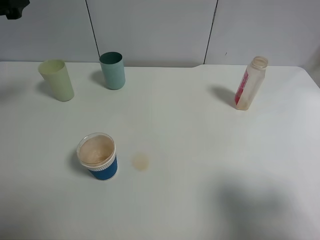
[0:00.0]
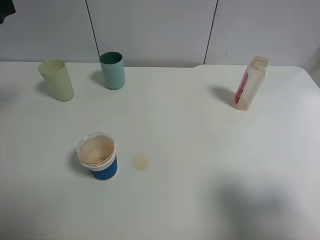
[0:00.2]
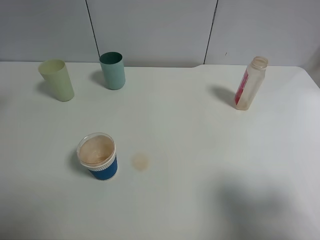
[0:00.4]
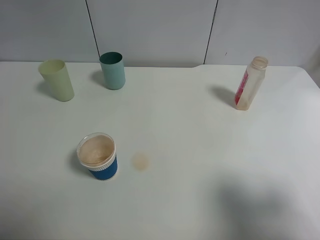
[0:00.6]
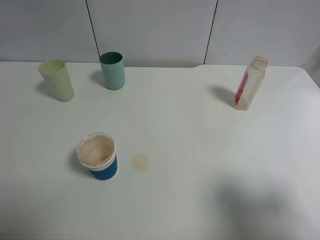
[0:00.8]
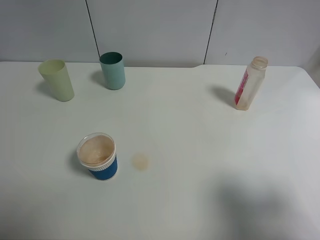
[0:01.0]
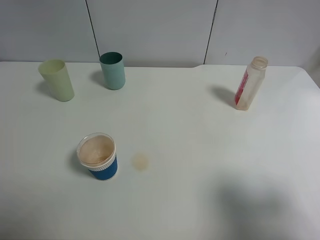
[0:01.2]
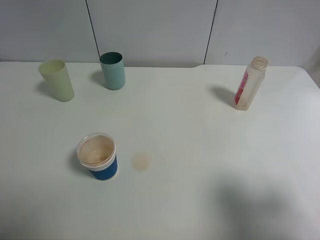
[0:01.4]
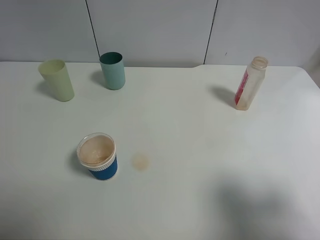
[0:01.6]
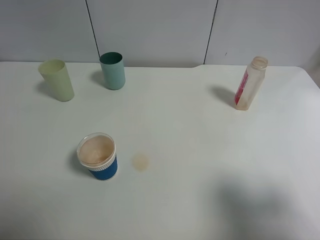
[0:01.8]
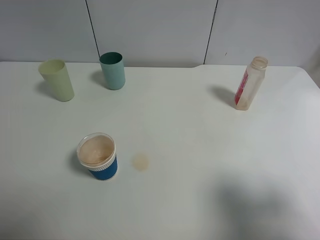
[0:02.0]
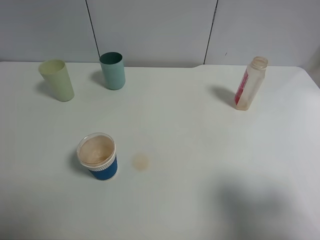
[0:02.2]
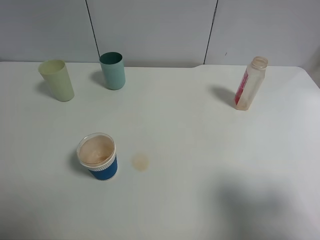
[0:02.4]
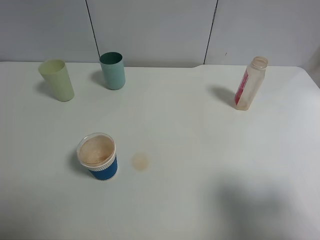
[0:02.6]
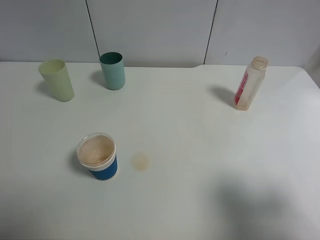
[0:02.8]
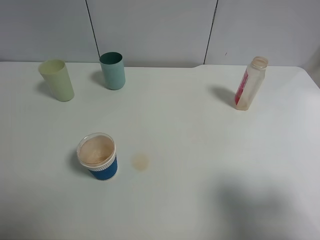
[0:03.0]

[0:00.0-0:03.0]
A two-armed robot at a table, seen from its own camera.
Task of the whole recording: use a clamp to hold the bottle of the drink, pour the beverage into a random cup, then clamp the cup containing the drink and pour the drink into another random cup.
0:00.0 to 0:01.6: The left gripper goes about 25 cm backward.

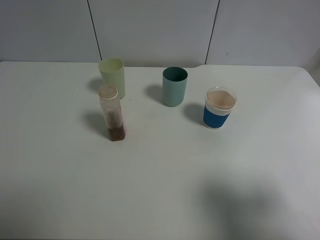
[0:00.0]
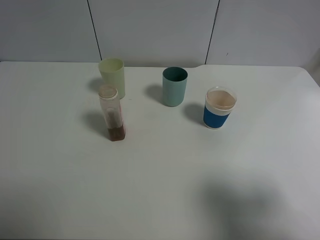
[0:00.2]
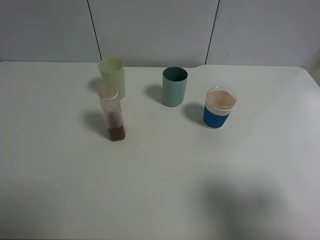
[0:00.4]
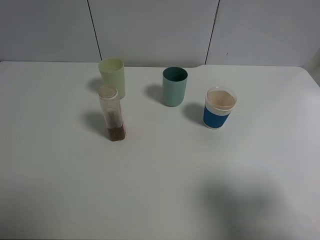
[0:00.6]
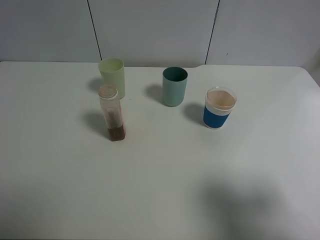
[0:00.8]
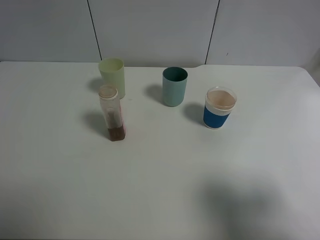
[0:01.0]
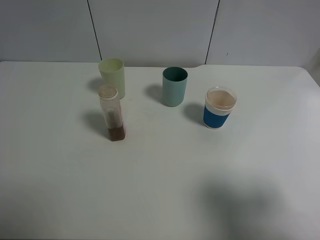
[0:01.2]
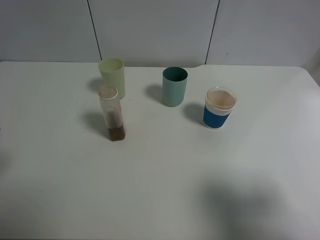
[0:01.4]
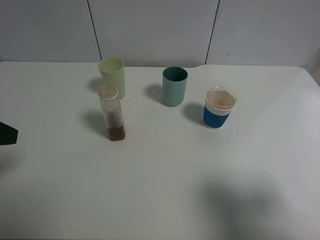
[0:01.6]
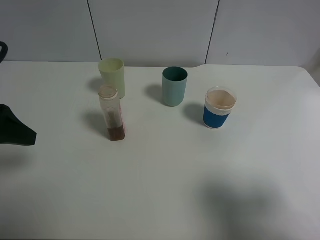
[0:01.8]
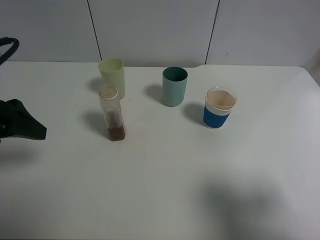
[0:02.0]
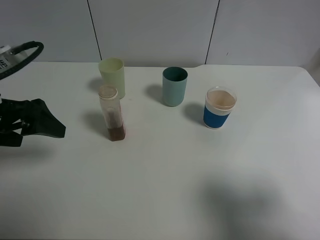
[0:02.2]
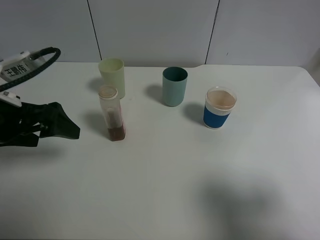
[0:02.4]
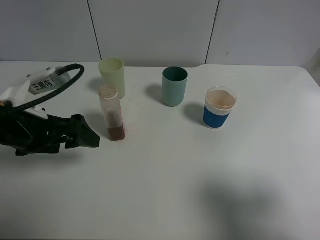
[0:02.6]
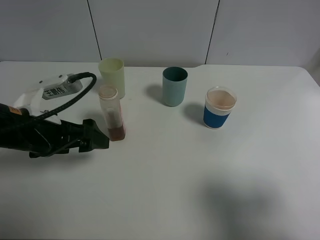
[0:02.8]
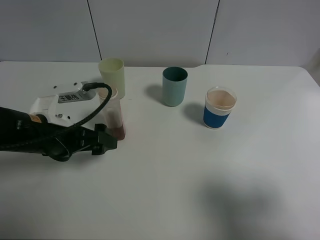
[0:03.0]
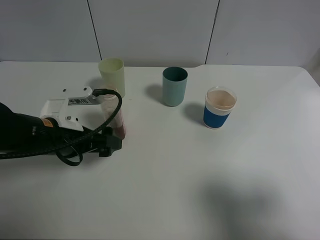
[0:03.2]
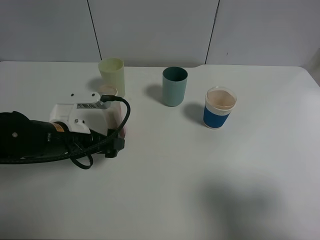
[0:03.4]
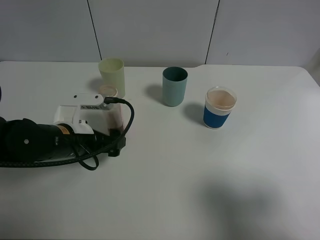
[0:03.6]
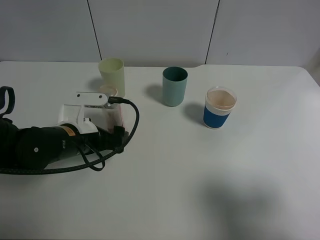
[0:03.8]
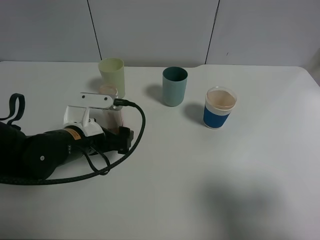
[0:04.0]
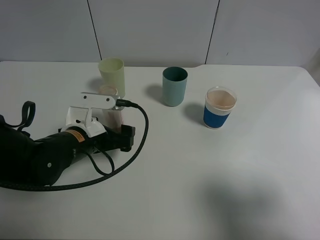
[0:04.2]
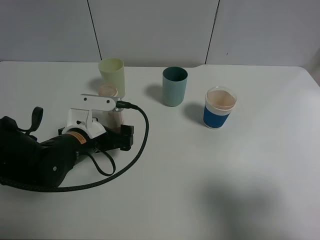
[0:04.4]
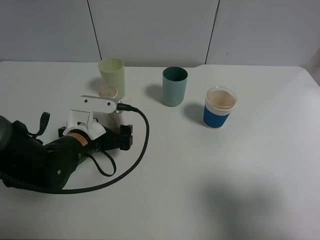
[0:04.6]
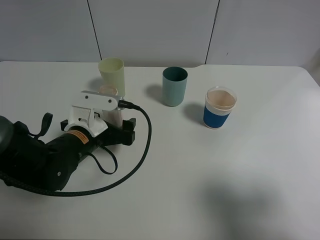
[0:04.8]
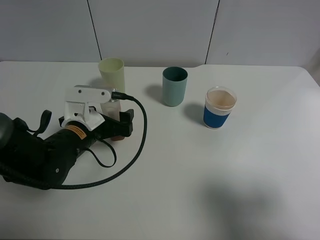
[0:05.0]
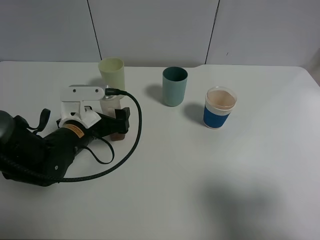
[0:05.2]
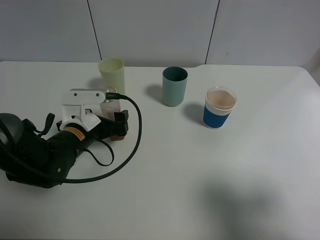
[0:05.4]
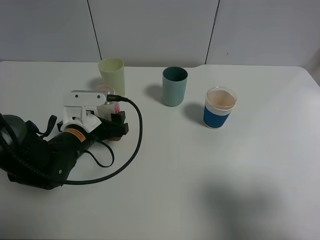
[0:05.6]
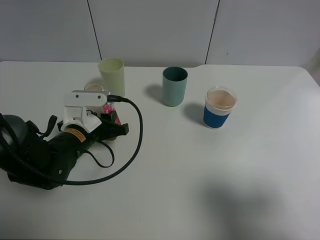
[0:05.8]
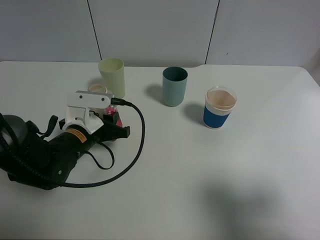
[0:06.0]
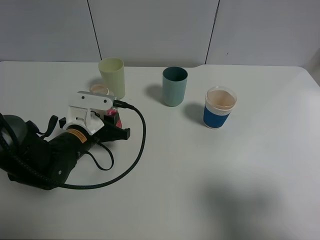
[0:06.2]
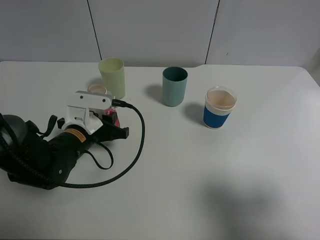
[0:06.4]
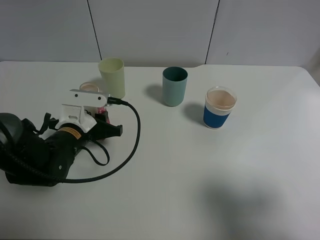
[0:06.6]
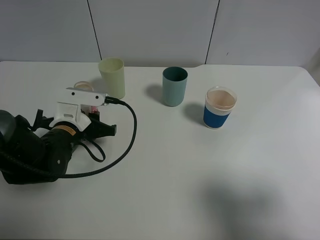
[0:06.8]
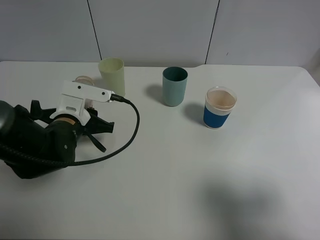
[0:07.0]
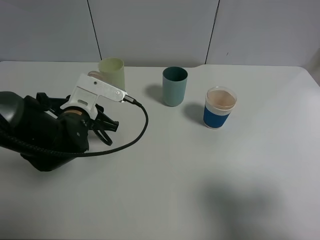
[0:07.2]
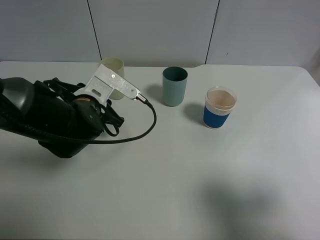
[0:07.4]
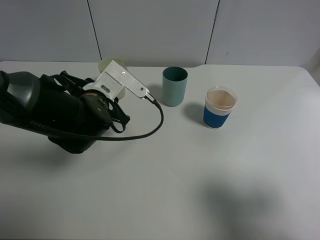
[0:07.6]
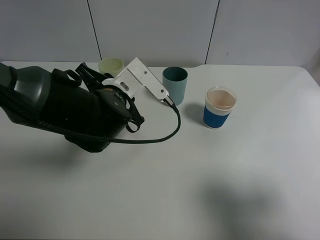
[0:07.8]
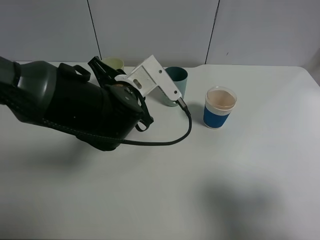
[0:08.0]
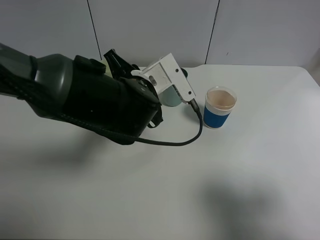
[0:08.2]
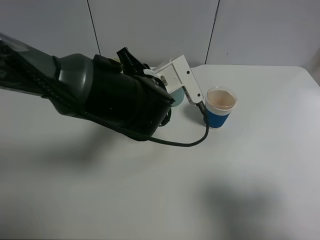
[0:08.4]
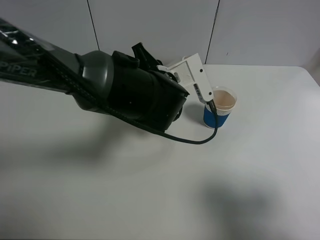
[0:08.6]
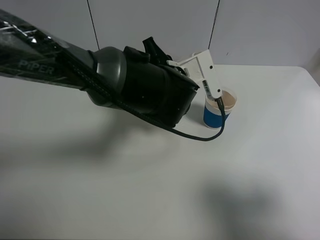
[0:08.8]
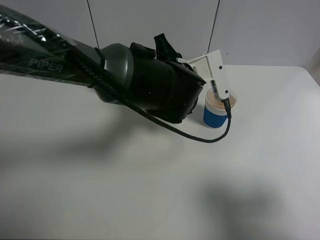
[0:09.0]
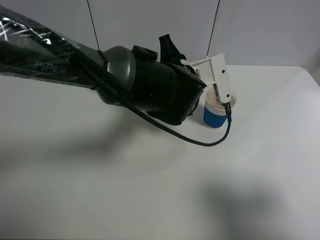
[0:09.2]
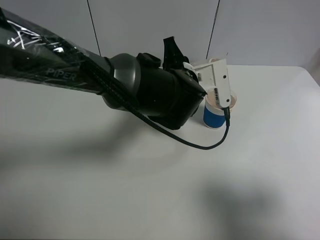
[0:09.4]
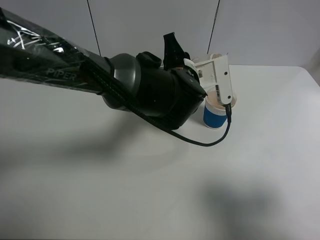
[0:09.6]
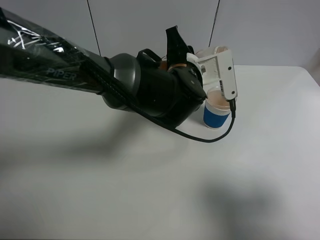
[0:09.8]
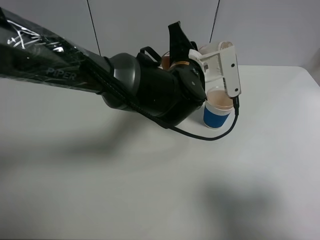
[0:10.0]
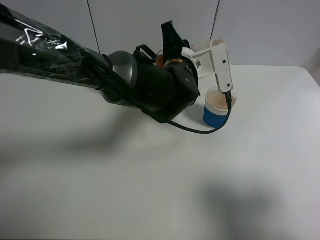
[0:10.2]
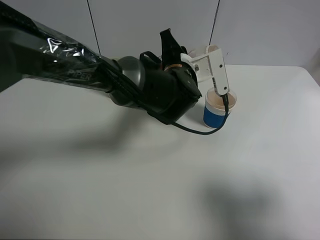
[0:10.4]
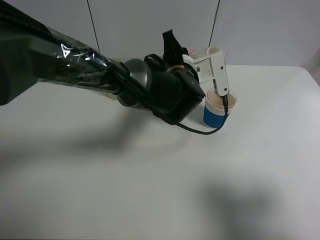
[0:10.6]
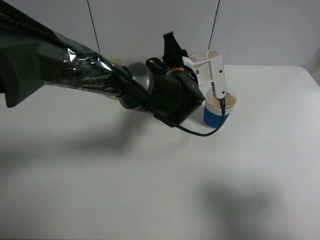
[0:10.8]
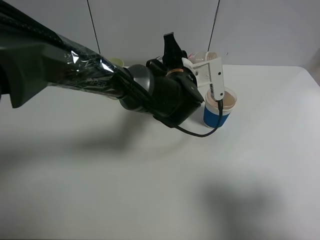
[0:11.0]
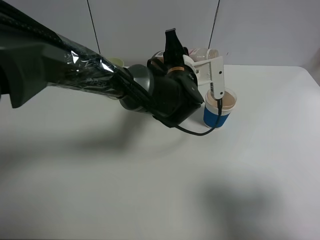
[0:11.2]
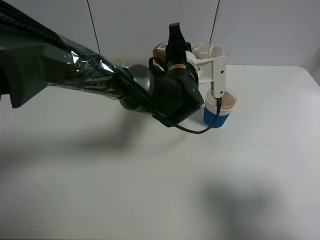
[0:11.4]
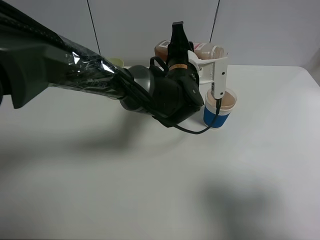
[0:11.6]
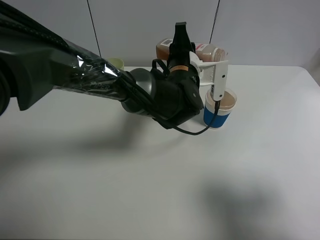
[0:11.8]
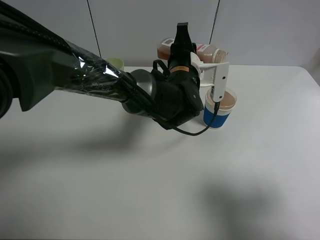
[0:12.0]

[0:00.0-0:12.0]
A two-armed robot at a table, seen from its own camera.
Task of the whole recording: use a clamp to hold the bottle of the drink, pour the beverage into a random cup, then clamp the cup containing the drink and pour the drink into another random cup.
Step, 0:00.0 to 0:06.4: Pick up the drink bottle with left gripper.
0:00.0 to 0:01.6: The left gripper is displaced forward by approximately 15 cm.
0:01.6 to 0:03.0: The left gripper goes some 15 cm downward, to the right and forward.
0:03.0 to 0:04.4: The left gripper shifts roughly 5 cm downward.
0:04.4 to 0:06.0: The left gripper closes.
0:06.0 to 0:07.6: The left gripper moves upward, roughly 5 cm.
0:07.6 to 0:09.0: The left gripper heads to the right, covering roughly 15 cm.
0:09.0 to 0:10.4: The grippers make only small movements.
0:10.4 to 0:12.0: The grippers make only small movements.

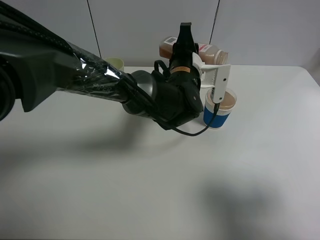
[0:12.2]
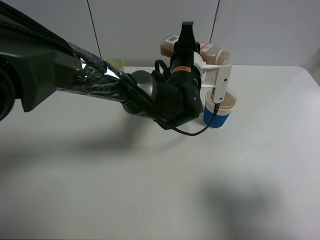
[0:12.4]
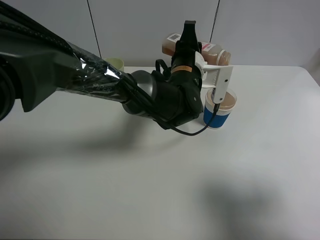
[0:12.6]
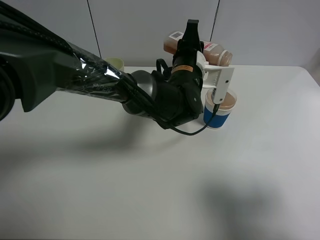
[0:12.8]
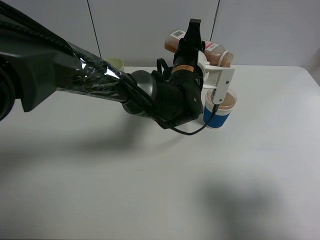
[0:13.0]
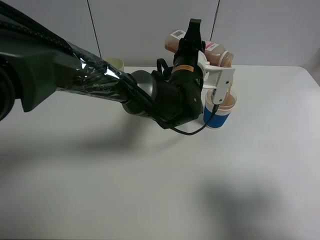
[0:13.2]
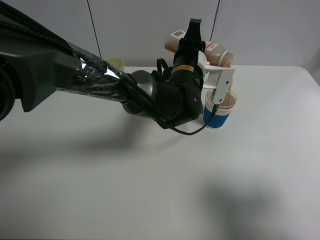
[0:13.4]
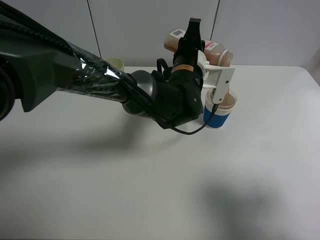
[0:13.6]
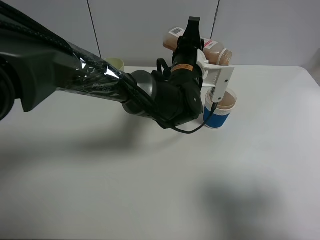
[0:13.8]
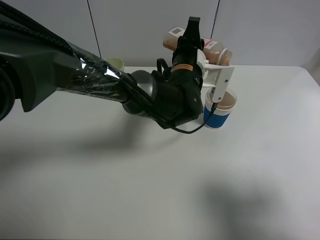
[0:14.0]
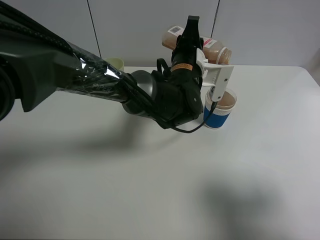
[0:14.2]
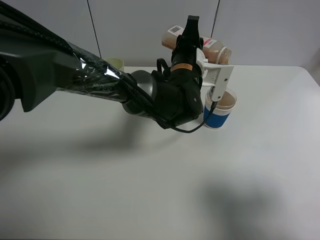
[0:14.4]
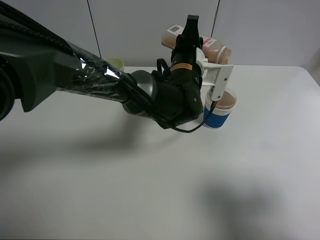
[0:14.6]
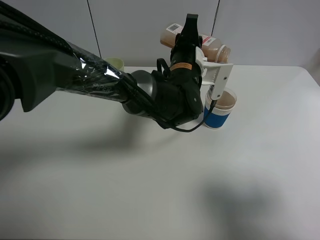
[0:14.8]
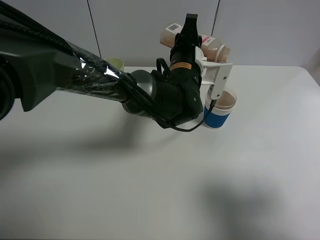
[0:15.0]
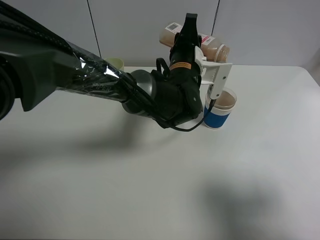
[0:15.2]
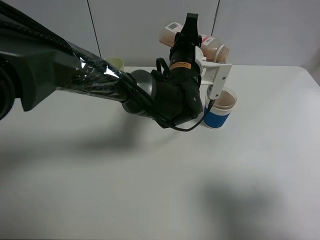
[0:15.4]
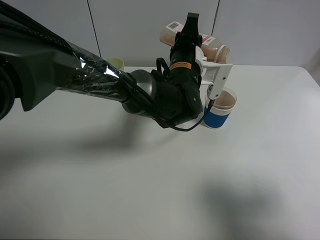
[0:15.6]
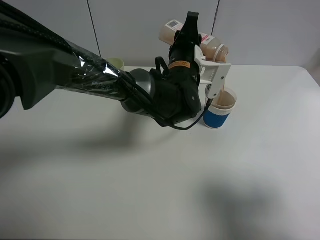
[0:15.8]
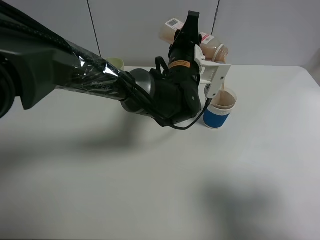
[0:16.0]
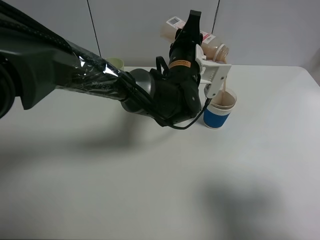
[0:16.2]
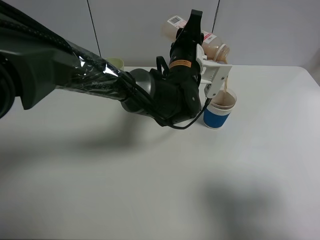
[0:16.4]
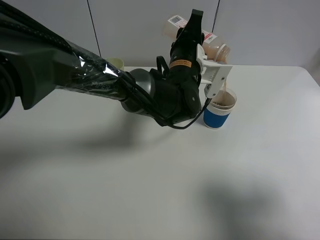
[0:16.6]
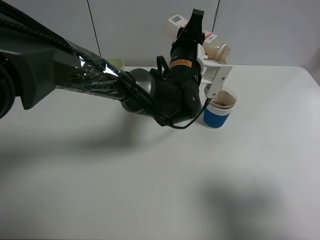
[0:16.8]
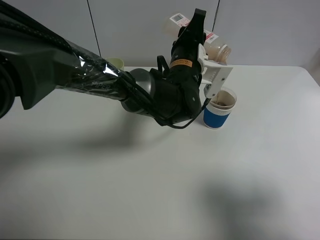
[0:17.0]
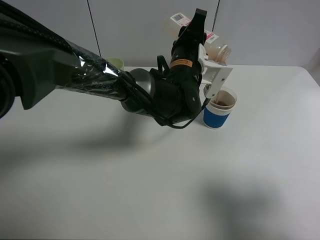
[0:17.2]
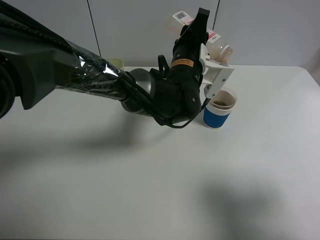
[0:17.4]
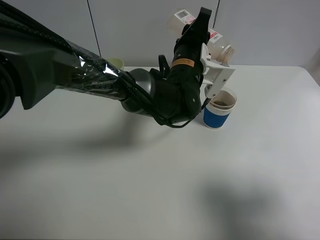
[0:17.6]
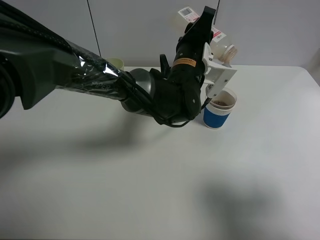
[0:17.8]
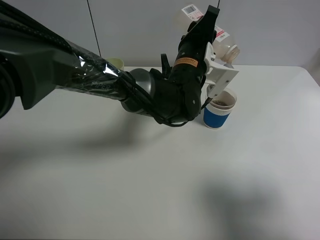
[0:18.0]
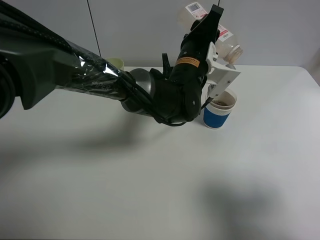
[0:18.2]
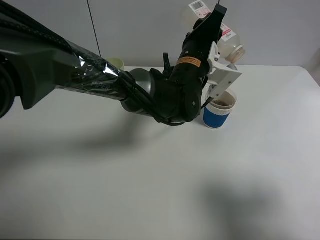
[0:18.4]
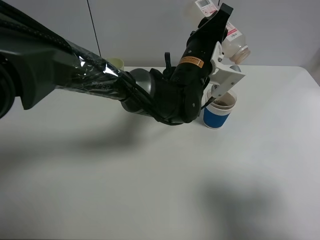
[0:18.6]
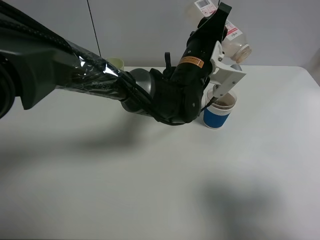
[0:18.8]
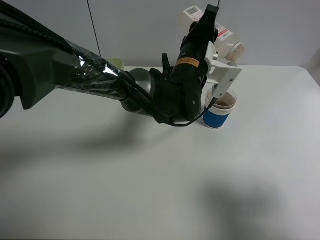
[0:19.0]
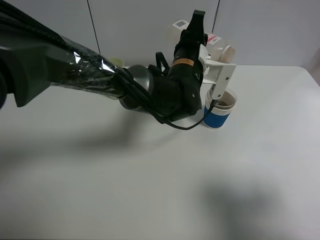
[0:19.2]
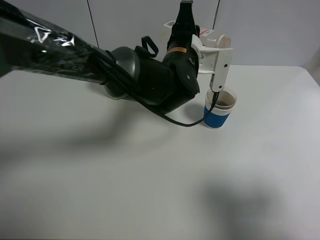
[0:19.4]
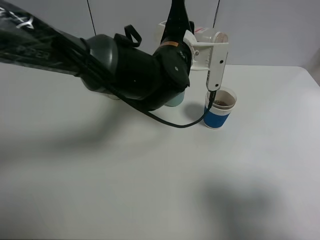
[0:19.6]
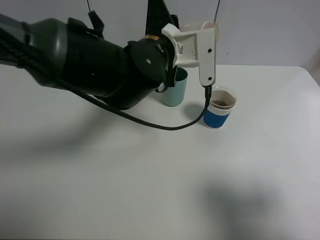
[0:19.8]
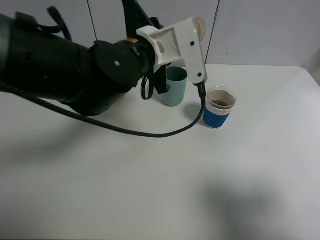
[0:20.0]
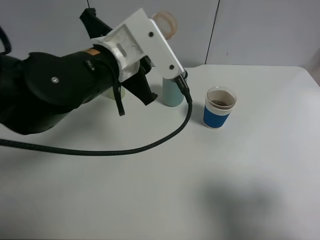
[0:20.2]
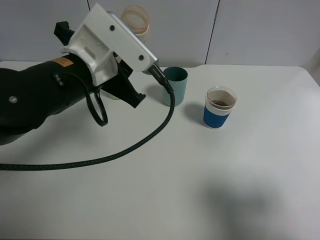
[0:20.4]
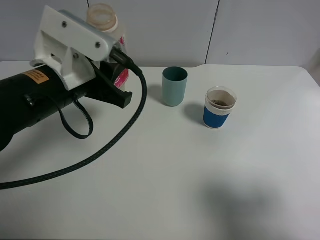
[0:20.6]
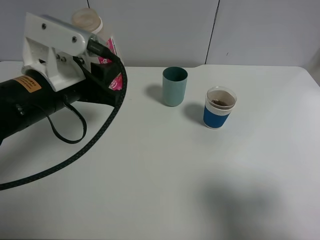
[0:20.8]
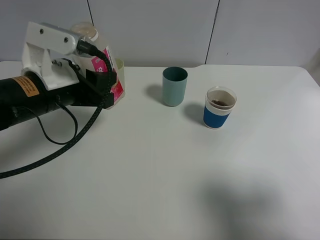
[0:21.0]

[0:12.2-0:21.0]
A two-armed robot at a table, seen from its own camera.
Task of the whole recording: use a clamp to hold the bottle of the drink, pour the beverage into a random cup, then clamp the cup containing the drink and pour the drink into another random cup.
Step, 0:12.2 to 0:19.2: Pour the drink into the blue plastic cup with left gripper.
0:12.2 to 0:13.6: The grippers make only small movements.
0:13.6 to 0:15.2: The two grippers keep their place.
0:15.2 to 0:18.0: The grippers stay close to where they were, moving slightly.
0:19.6 to 0:21.0: The left gripper goes roughly 20 cm to the left and backward.
